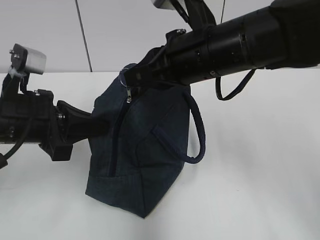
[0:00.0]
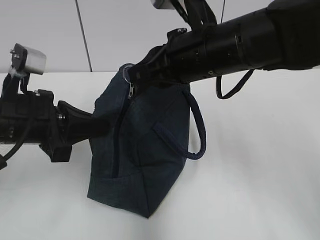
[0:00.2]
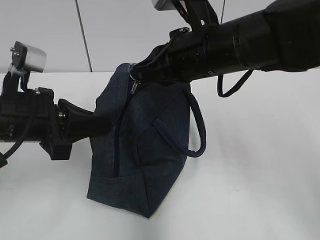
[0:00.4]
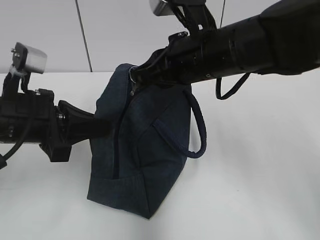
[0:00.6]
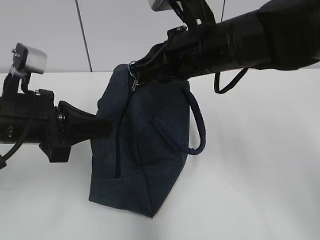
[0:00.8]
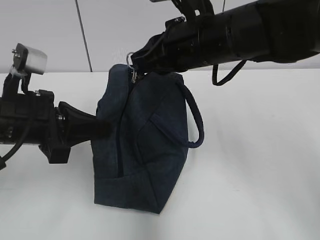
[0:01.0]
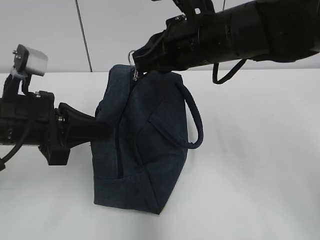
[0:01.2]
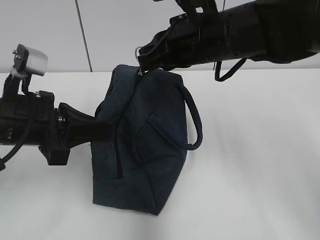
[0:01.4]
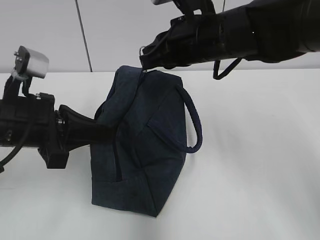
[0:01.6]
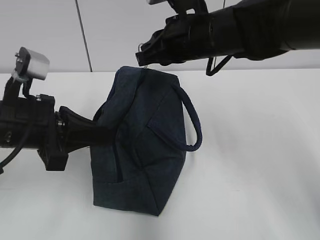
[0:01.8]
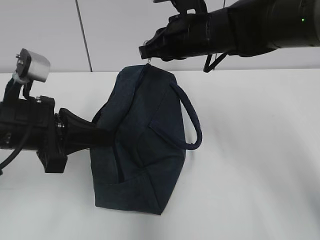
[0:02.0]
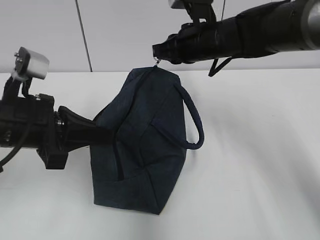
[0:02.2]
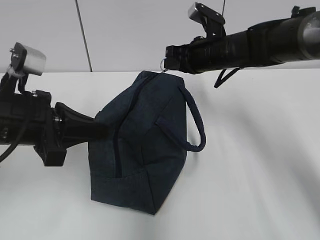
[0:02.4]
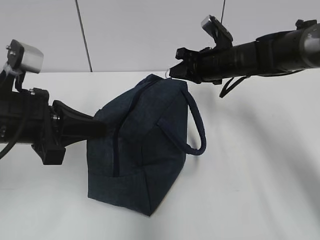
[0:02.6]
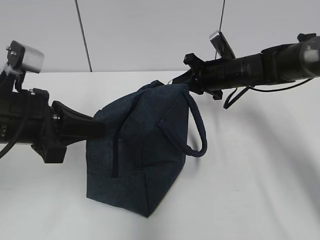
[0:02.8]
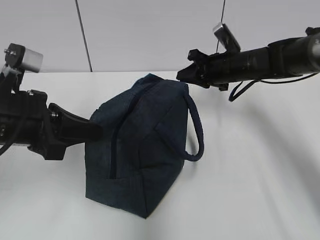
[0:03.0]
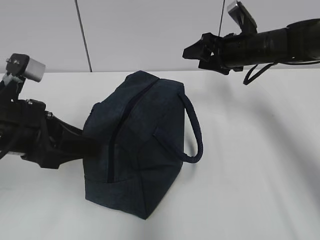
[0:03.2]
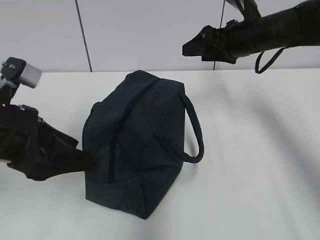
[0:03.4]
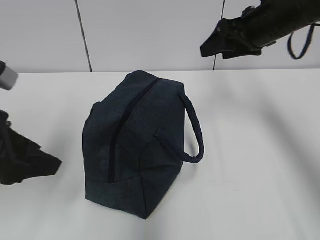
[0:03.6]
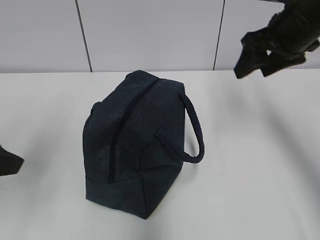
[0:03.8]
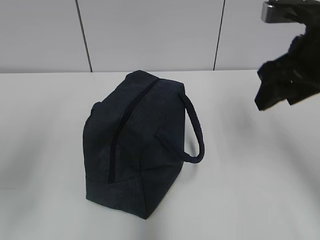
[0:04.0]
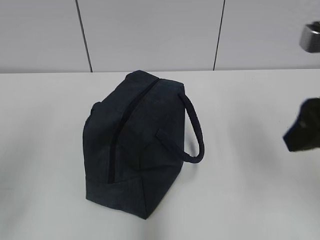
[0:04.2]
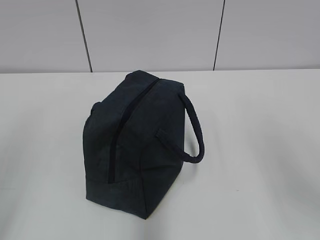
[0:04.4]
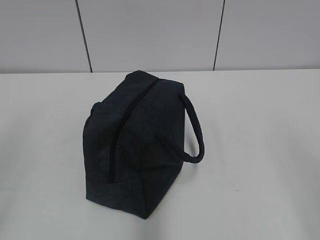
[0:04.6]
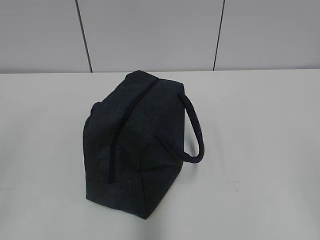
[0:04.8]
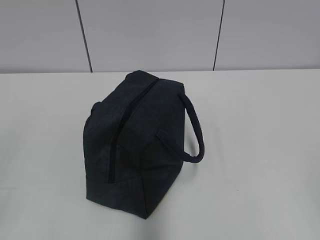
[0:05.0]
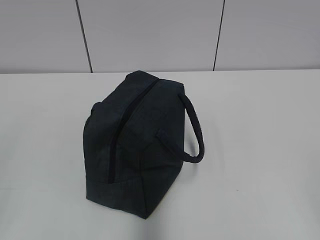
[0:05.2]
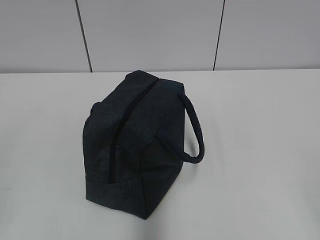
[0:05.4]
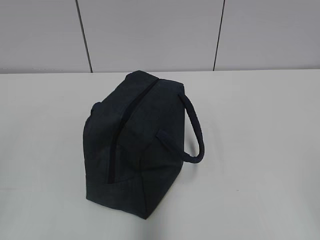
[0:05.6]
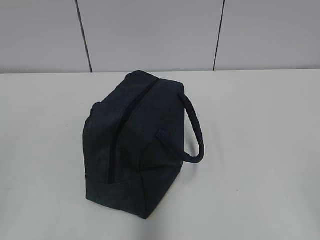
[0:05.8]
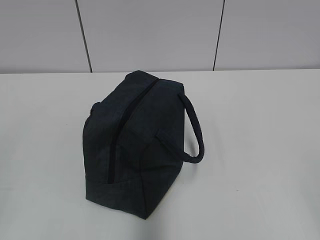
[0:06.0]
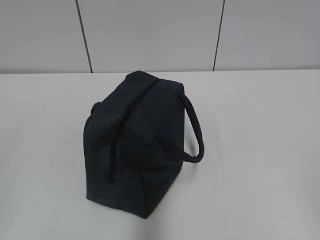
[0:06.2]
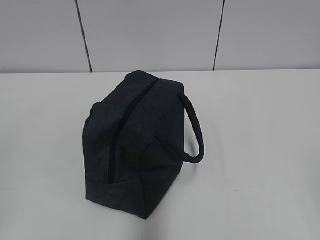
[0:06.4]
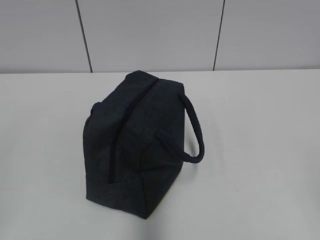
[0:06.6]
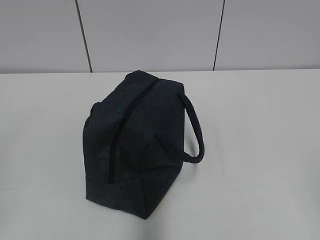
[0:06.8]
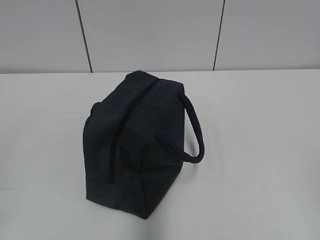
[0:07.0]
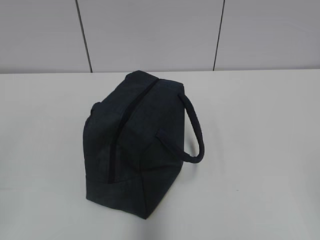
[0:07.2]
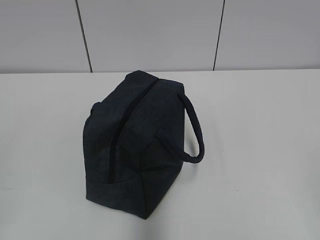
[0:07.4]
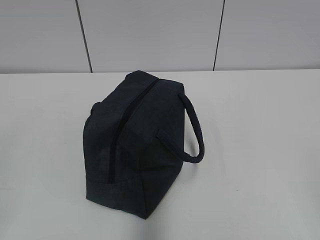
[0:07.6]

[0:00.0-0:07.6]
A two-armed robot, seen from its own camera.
Step, 0:00.0 to 0:02.8: Pull the zipper with your right hand.
0:00.0 to 0:01.6: The right gripper moves forward, approximately 5 cm.
0:01.6 to 0:03.0: The right gripper is displaced forward, to the right and downward by roughly 20 cm.
0:03.0 to 0:04.6: The left gripper moves backward, to the left and upward, about 25 cm, and opens its fingers, while the right gripper shifts approximately 40 cm backward, and opens up.
